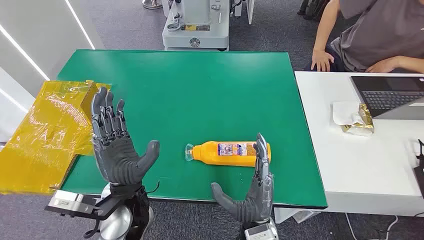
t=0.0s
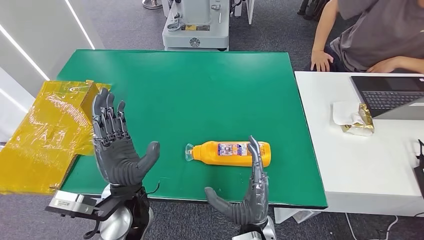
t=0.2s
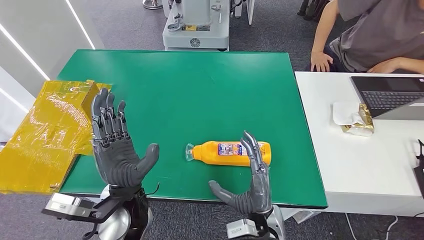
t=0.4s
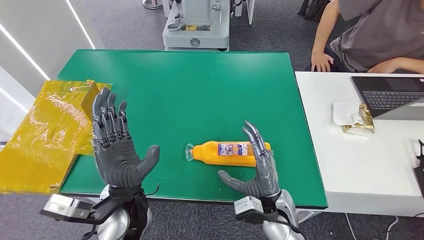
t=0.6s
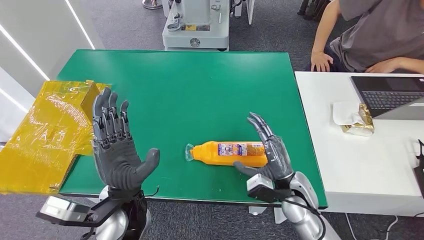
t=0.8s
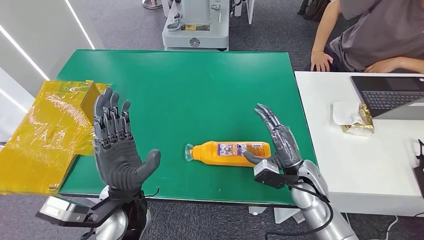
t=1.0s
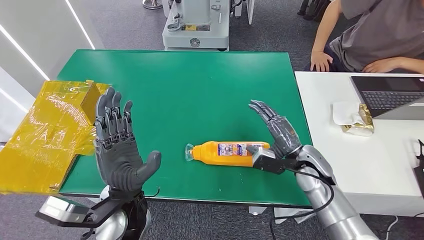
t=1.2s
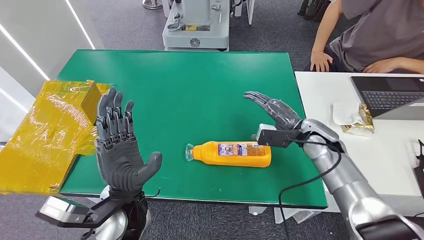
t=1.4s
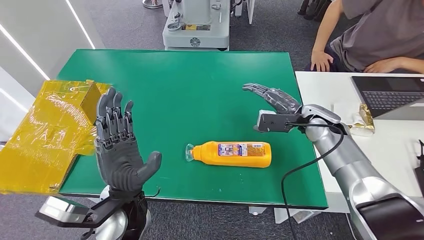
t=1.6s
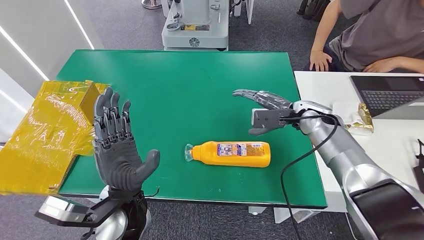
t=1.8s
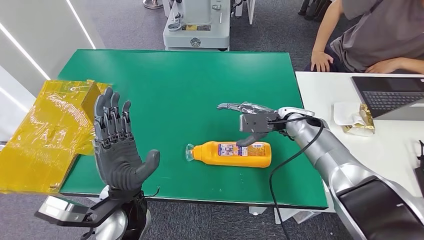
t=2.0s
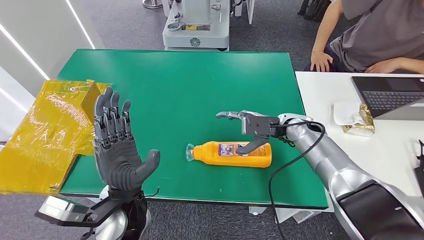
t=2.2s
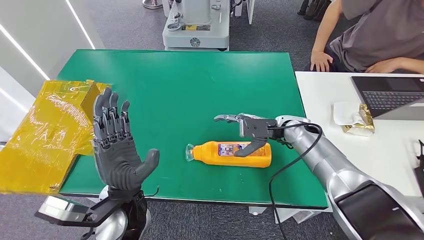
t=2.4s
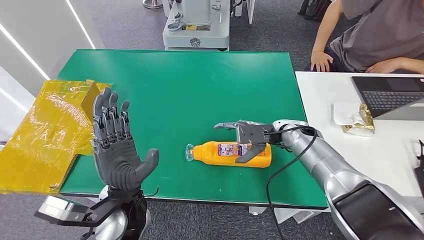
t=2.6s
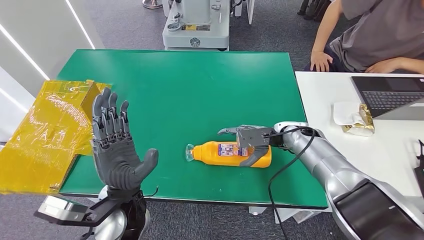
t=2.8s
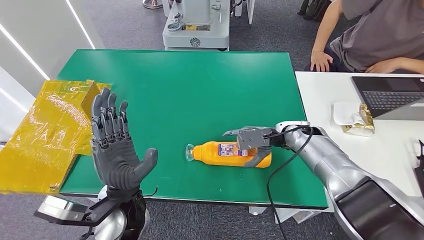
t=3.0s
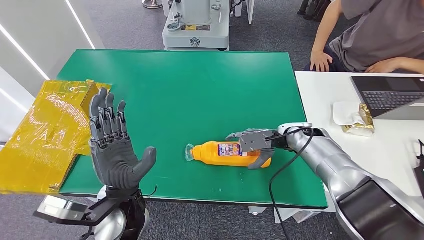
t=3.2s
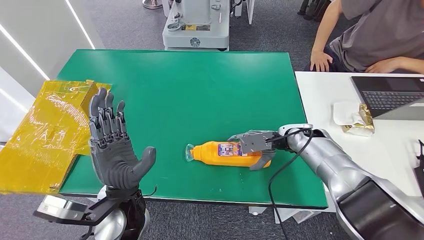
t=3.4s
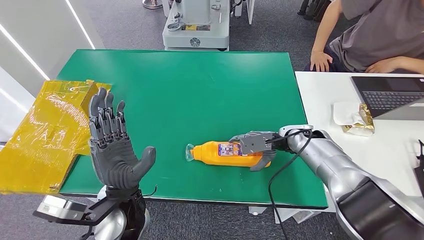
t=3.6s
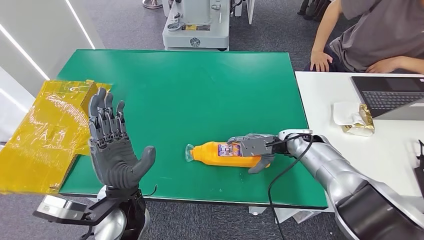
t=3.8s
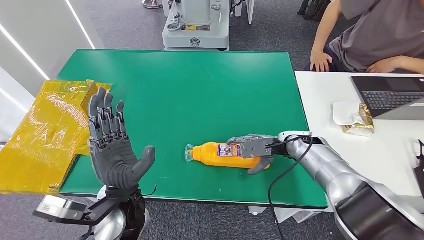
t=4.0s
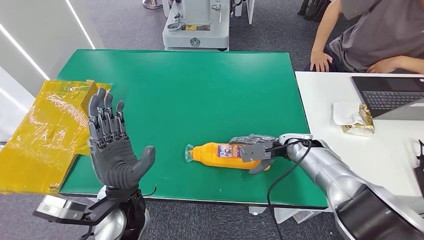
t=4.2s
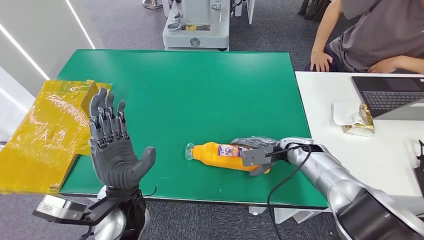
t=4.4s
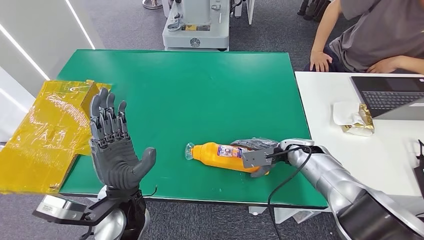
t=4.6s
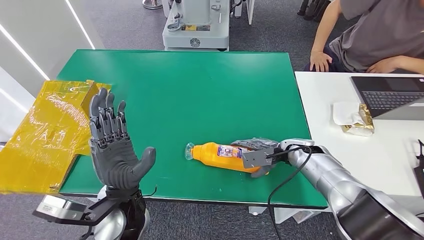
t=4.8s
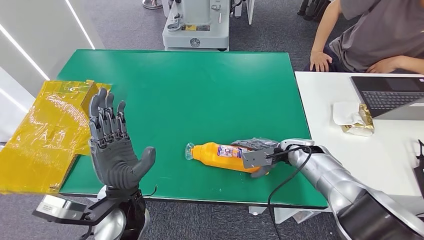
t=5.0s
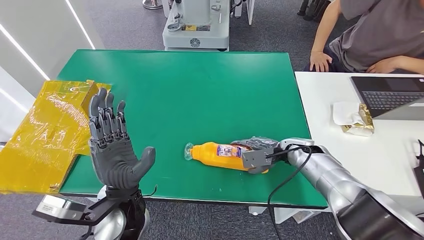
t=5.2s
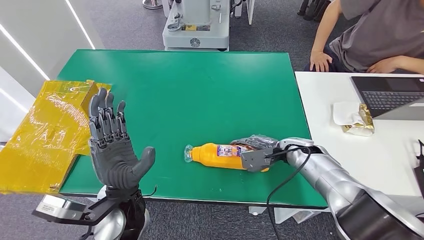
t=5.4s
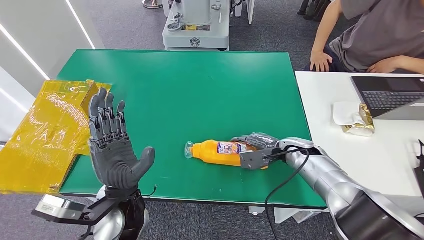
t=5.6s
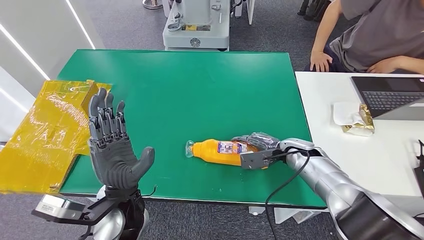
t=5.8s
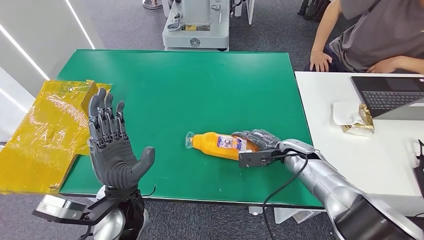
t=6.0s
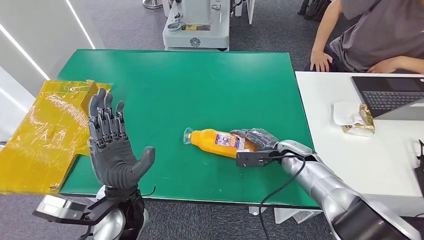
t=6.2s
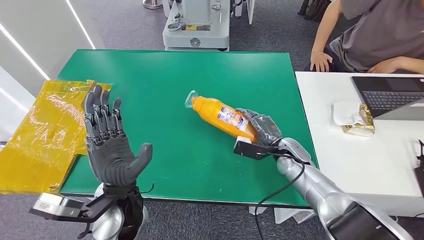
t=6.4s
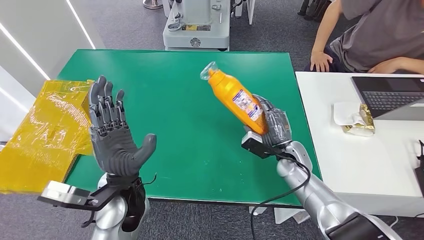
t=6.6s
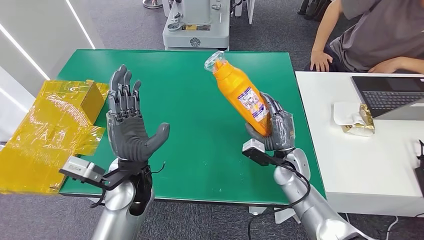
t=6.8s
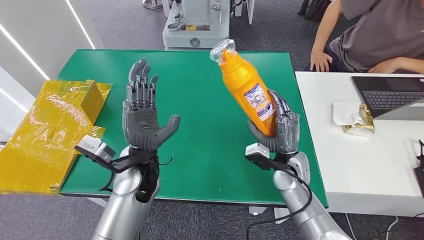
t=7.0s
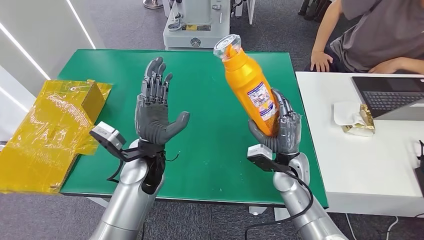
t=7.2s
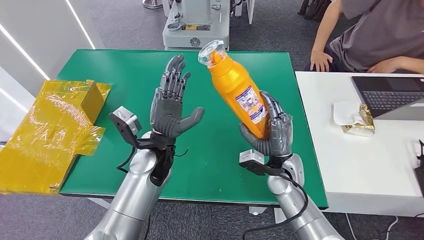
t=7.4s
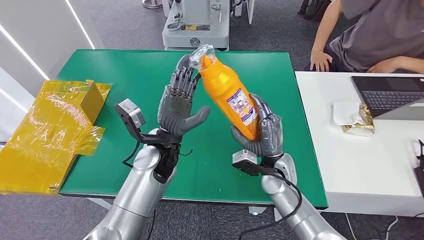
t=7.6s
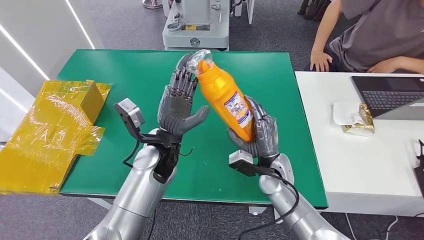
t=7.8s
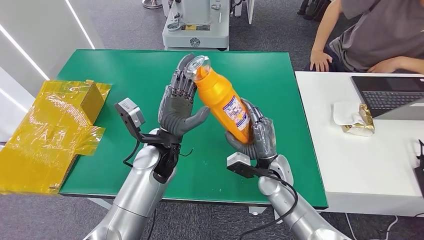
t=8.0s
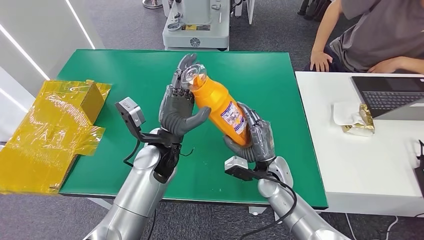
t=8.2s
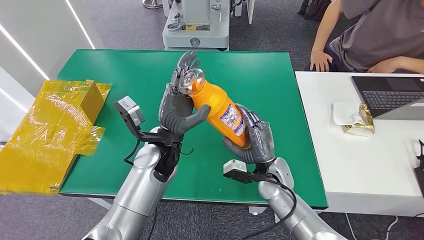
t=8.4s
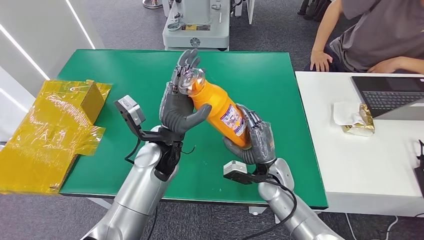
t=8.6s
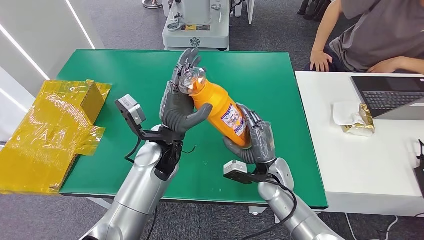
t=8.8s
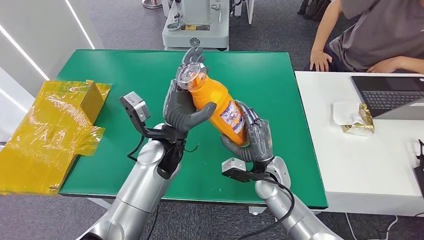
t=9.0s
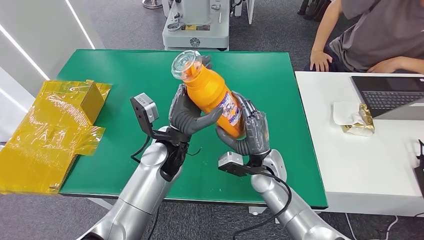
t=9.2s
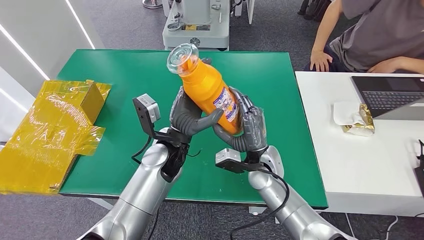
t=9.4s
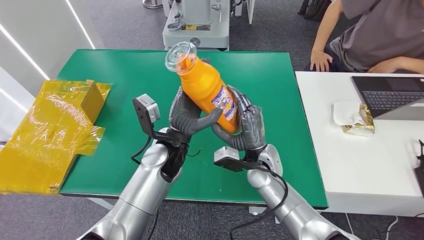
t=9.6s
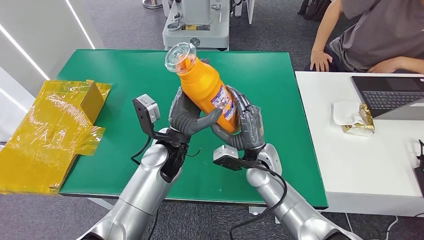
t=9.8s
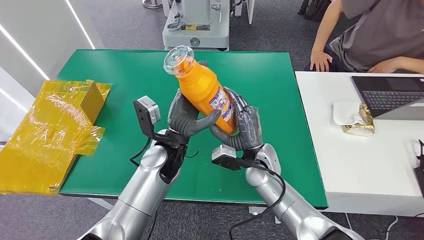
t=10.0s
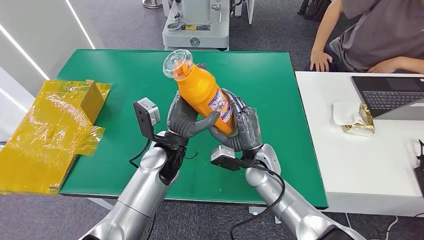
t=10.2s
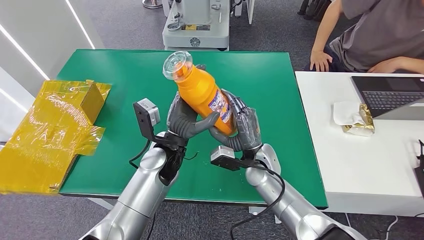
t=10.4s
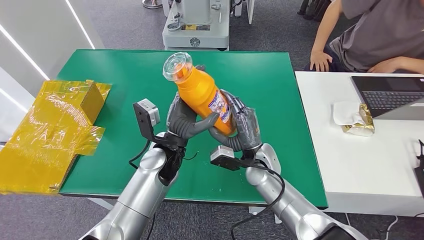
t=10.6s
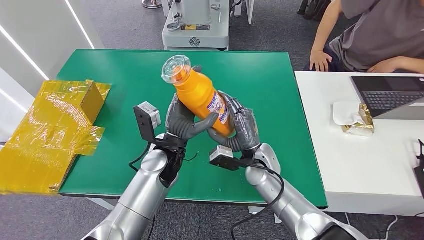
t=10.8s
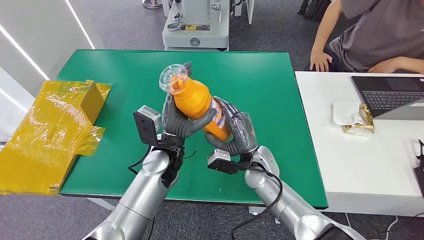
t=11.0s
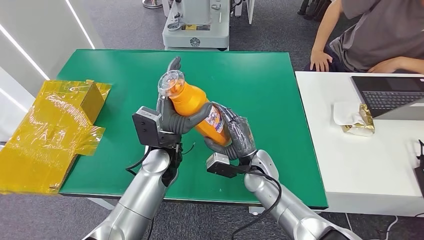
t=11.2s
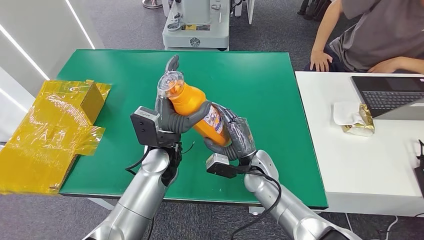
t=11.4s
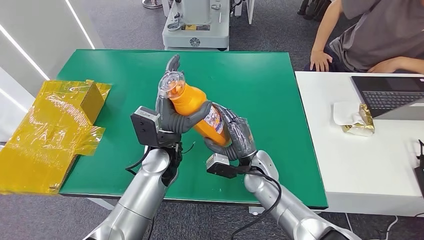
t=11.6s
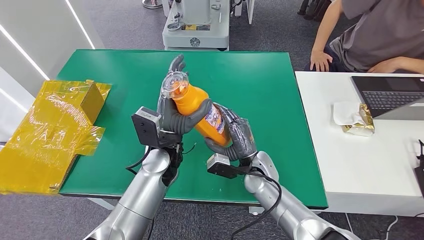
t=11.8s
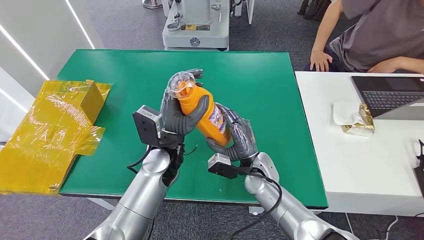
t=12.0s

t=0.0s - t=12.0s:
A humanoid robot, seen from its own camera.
Step, t=0.0s - t=7.4s: Pick up the bottle from the table.
t=1.6s - t=3.0s: The right hand moves some 5 cm.
t=3.0s - t=4.4s: The right hand ends up about 5 cm from where it was.
t=4.4s - t=6.0s: There are only small adjustments of the hands.
t=7.6s - t=10.4s: The hands move only a little.

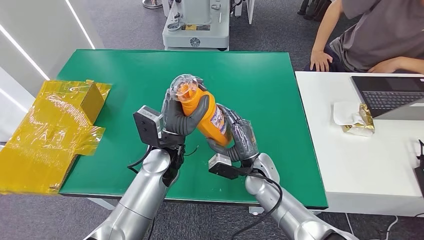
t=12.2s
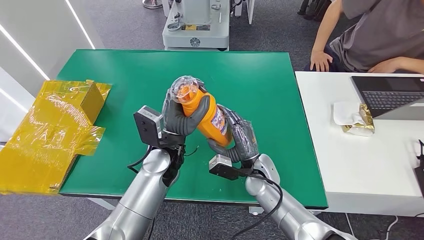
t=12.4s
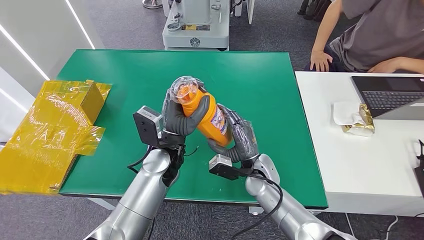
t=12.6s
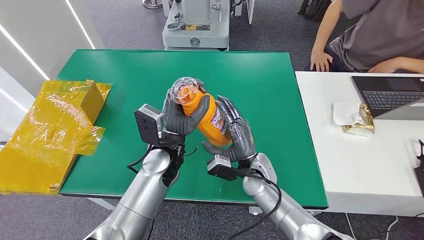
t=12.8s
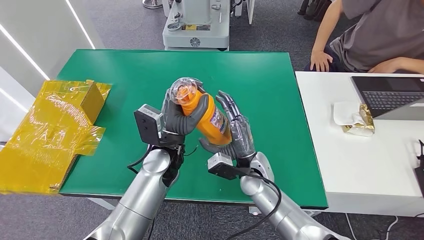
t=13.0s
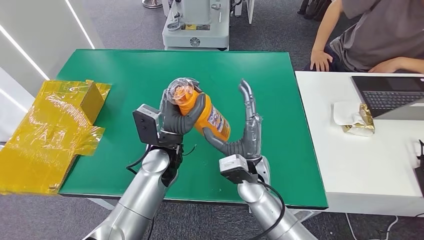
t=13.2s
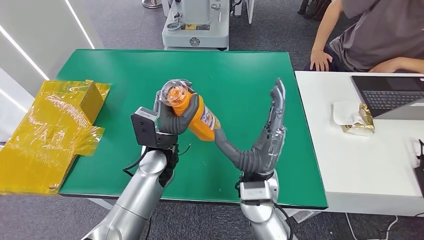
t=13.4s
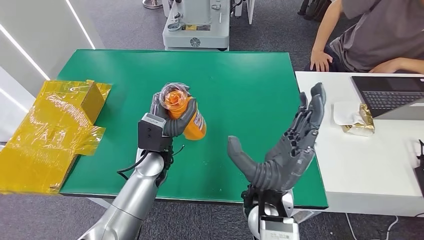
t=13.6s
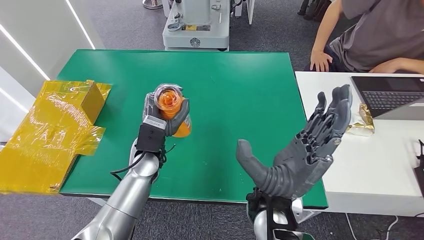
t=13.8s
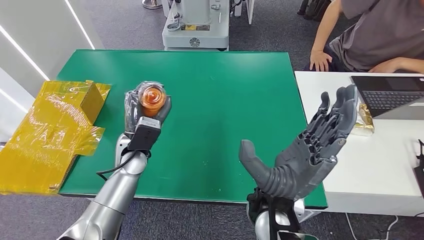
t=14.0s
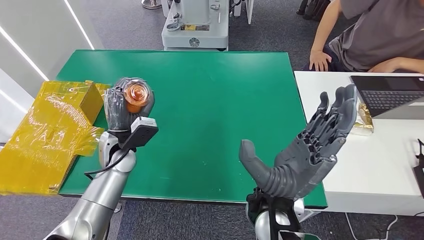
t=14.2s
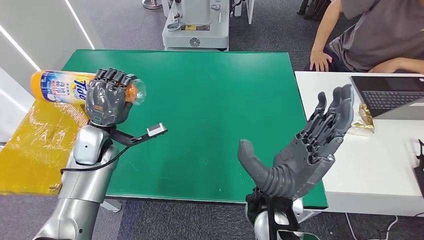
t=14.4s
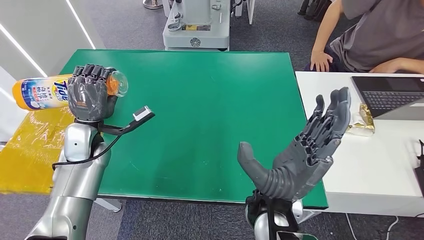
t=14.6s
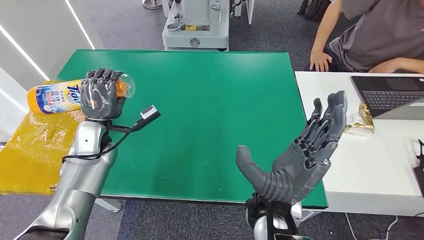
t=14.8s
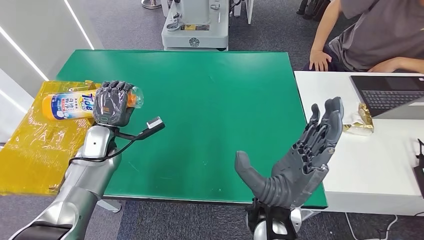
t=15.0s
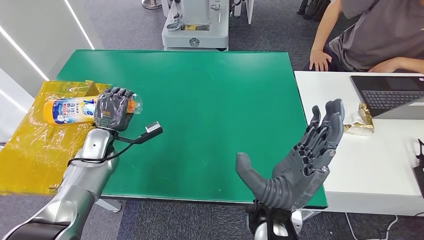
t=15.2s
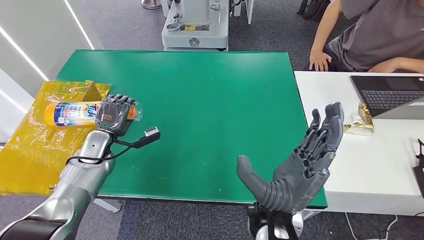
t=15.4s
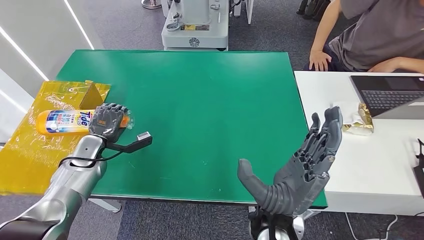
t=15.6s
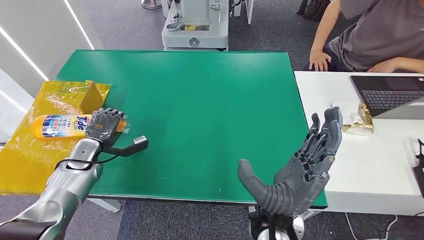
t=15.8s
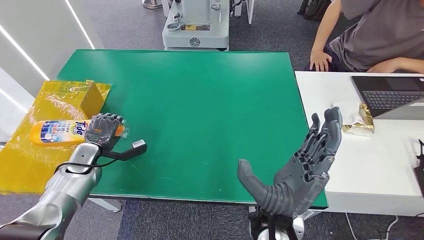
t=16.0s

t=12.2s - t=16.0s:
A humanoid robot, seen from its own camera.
Step, t=12.2s - t=16.0s: Turn the bottle to the front side.
t=12.2s - t=13.4s: The right hand heads upward and backward, covering roughly 10 cm.
t=14.8s - t=16.0s: The left hand is displaced downward and to the left by roughly 15 cm.
